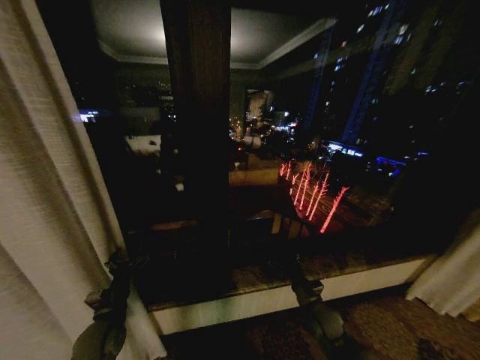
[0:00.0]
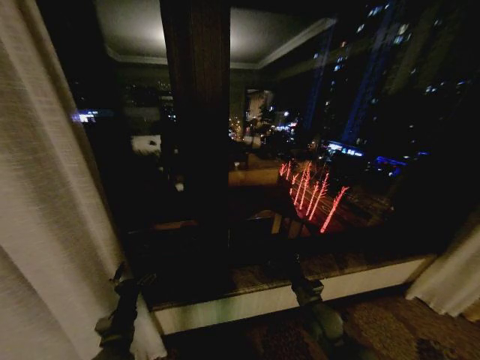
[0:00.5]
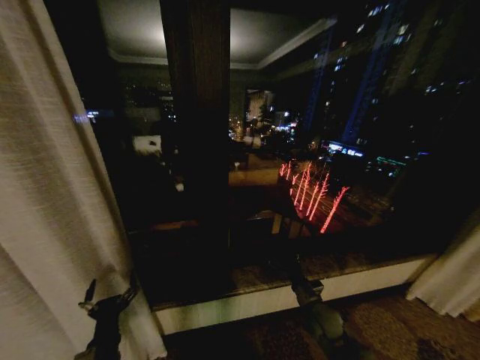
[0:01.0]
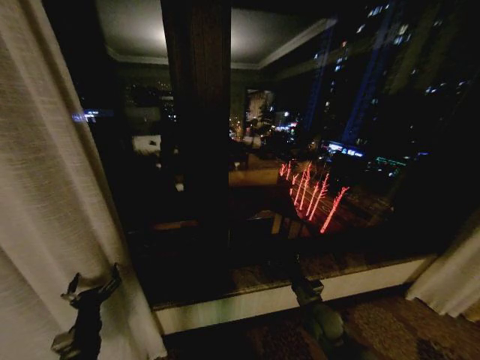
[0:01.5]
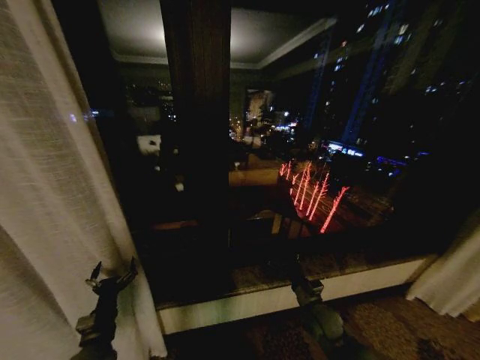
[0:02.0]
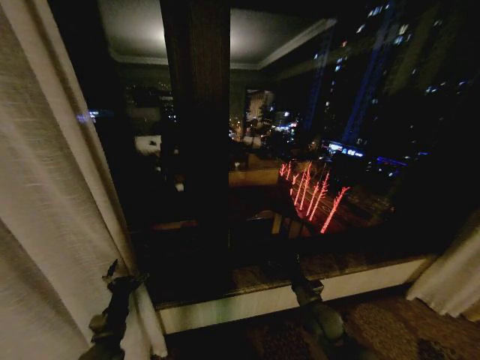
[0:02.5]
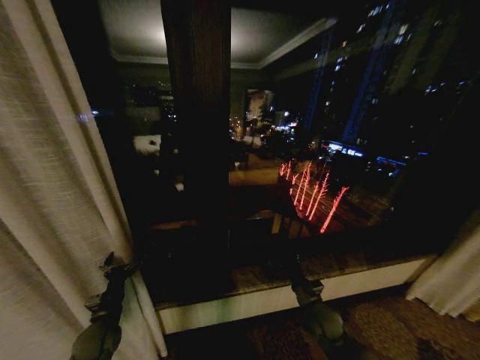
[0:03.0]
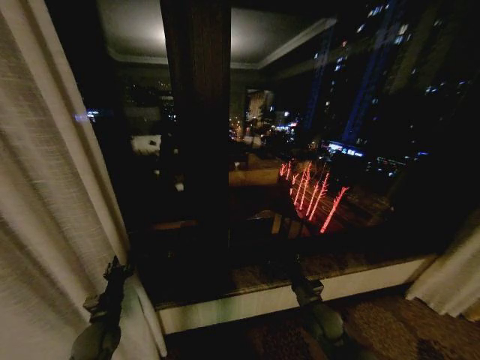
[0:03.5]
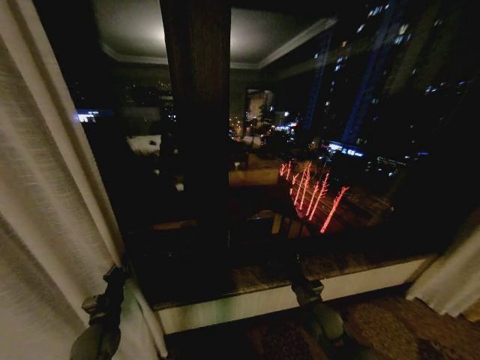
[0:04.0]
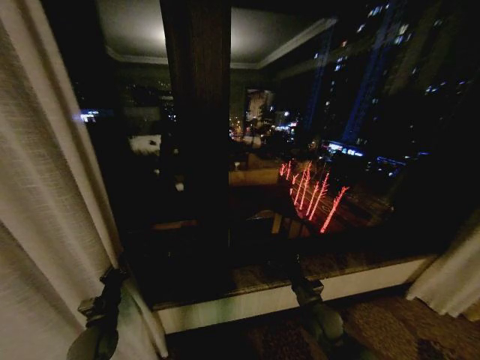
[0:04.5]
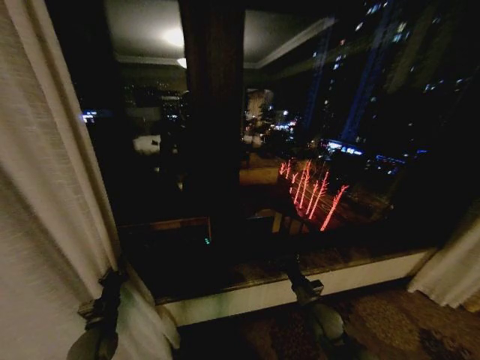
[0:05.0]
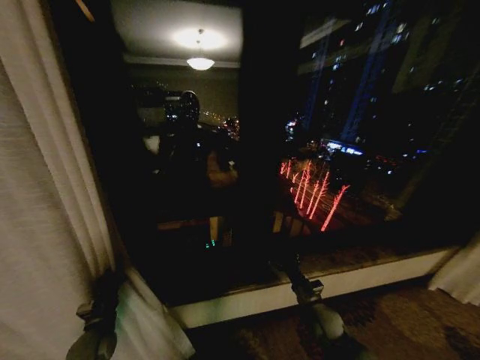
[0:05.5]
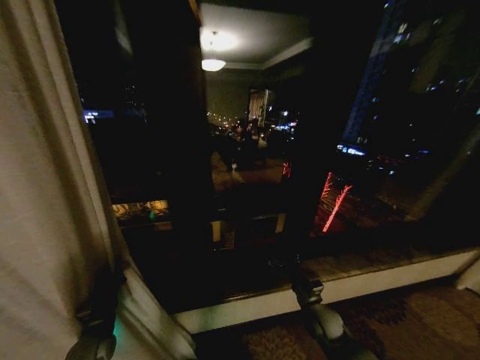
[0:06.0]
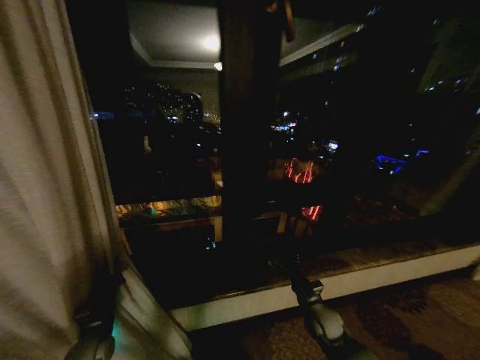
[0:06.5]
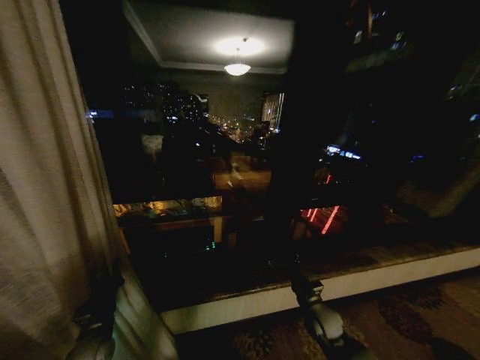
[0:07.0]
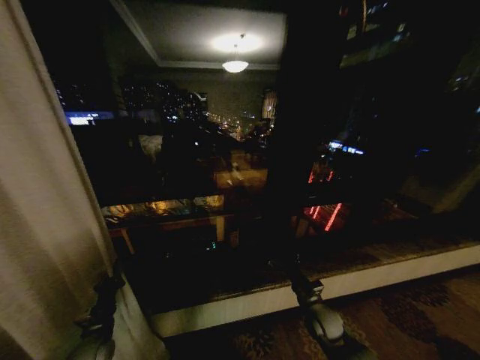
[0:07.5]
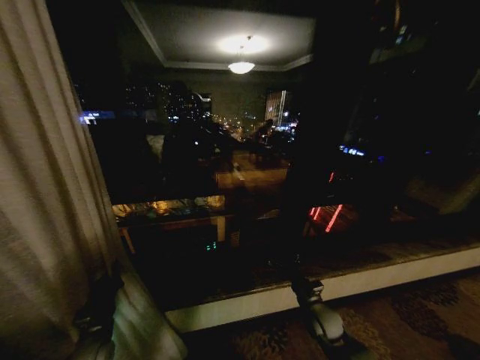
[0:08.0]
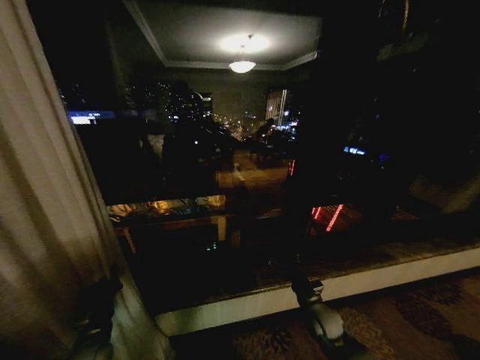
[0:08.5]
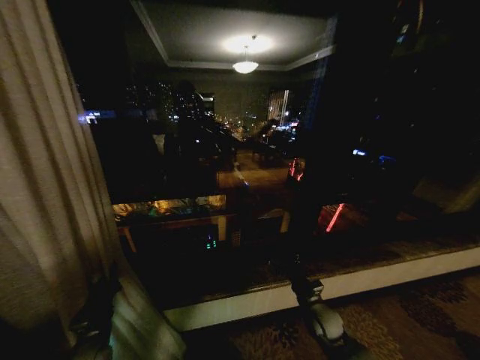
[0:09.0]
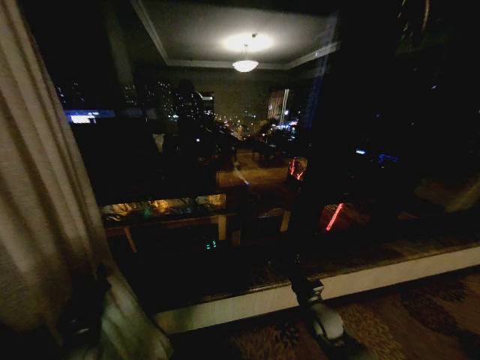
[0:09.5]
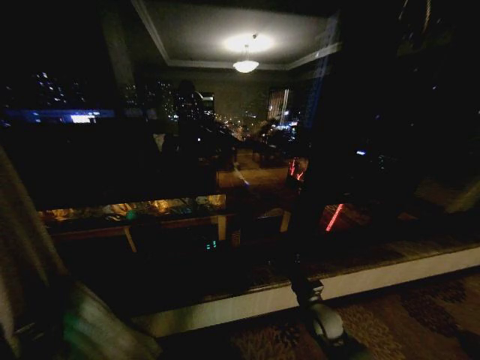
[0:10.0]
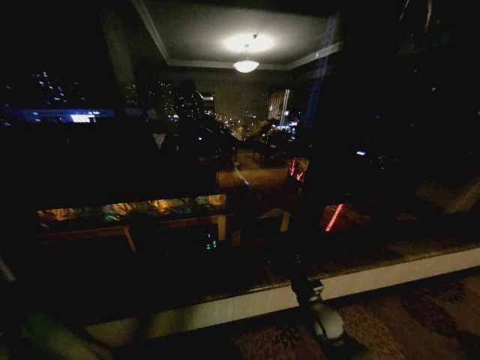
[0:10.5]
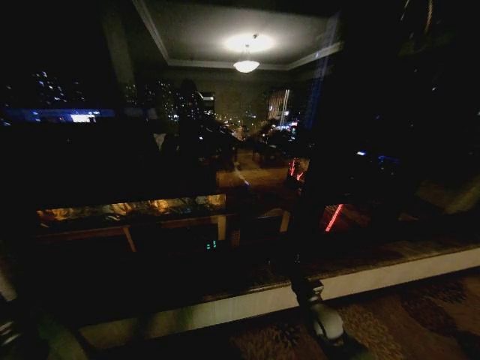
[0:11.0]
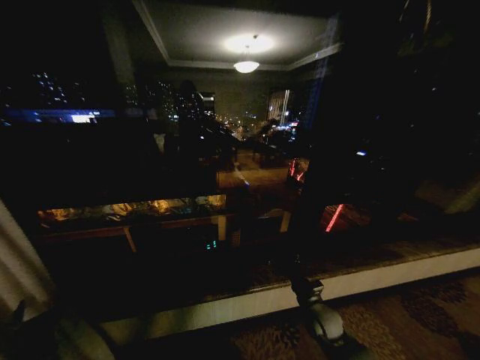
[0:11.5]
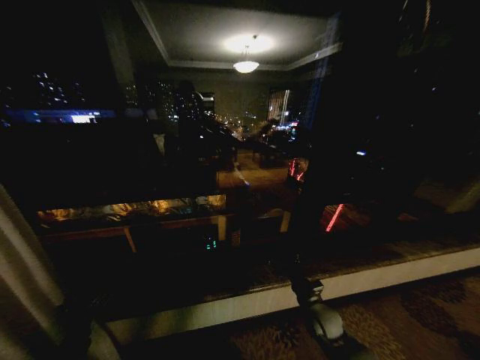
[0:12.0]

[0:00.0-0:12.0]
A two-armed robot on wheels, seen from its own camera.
Task of the whole recording: Open the curtains by pulling them apart, changing their state from closed to fully open.
0:02.0 to 0:04.0: The left gripper changes place by about 5 cm, and closes its fingers.
0:08.0 to 0:10.0: The left gripper travels to the left by about 10 cm.
0:10.0 to 0:12.0: The left gripper is displaced to the right and backward by approximately 15 cm, and opens its fingers.

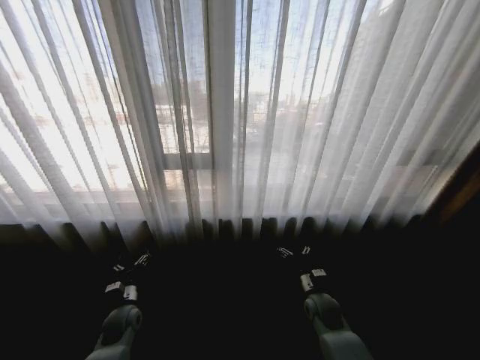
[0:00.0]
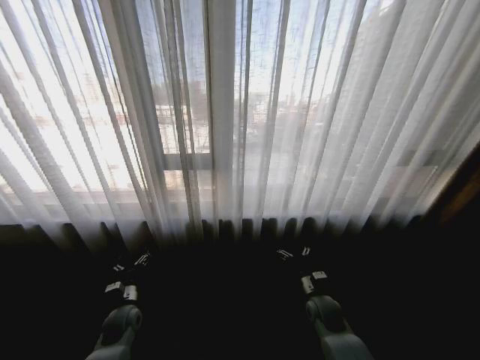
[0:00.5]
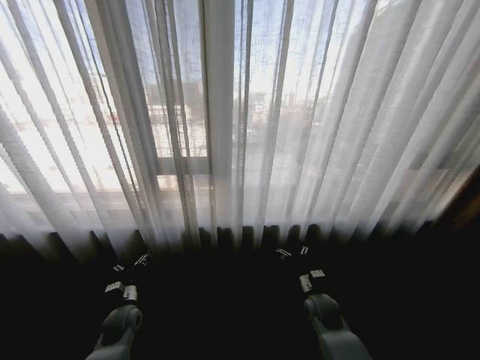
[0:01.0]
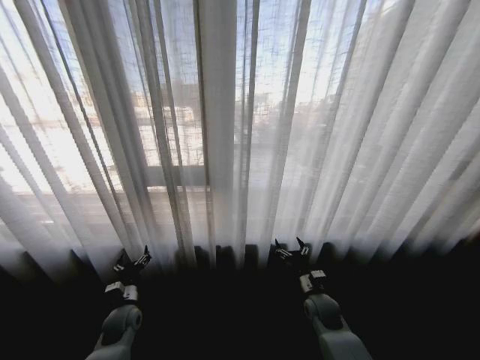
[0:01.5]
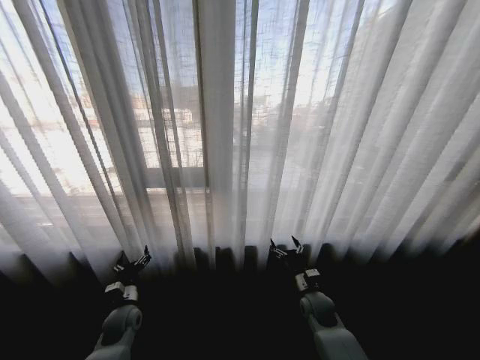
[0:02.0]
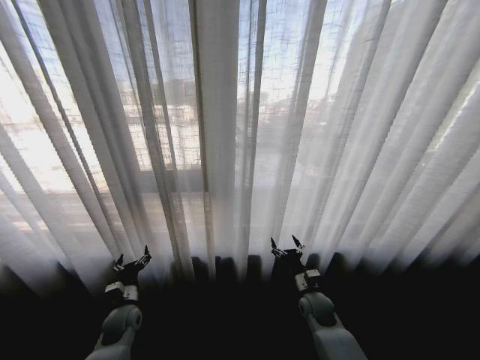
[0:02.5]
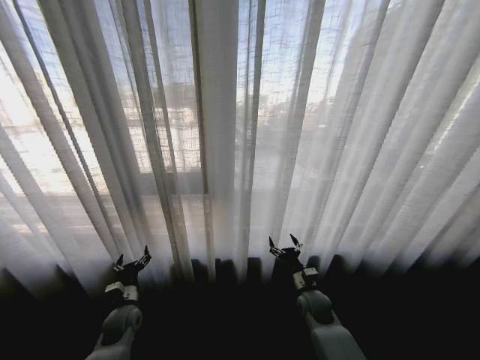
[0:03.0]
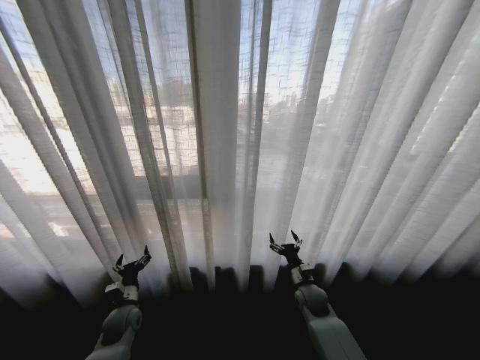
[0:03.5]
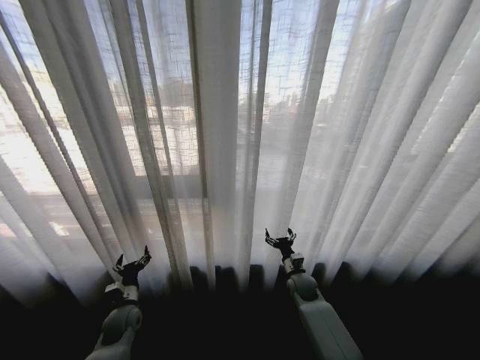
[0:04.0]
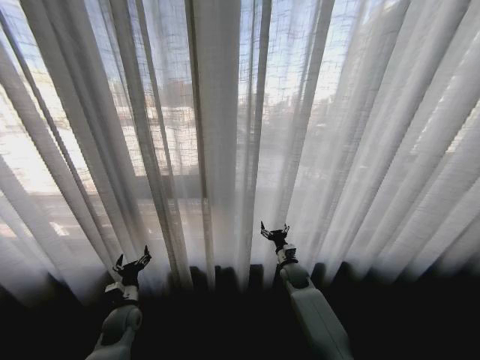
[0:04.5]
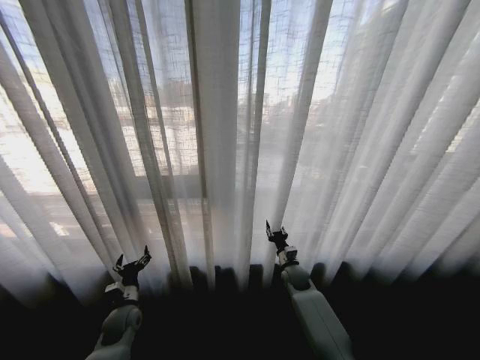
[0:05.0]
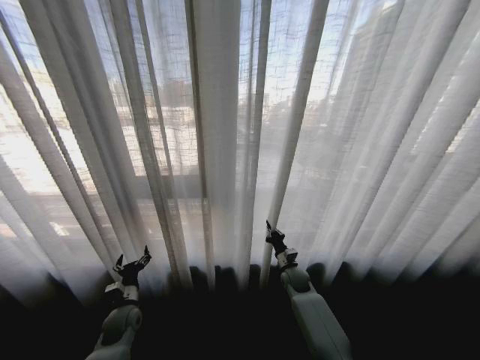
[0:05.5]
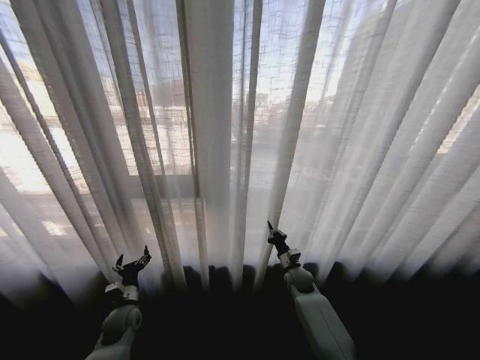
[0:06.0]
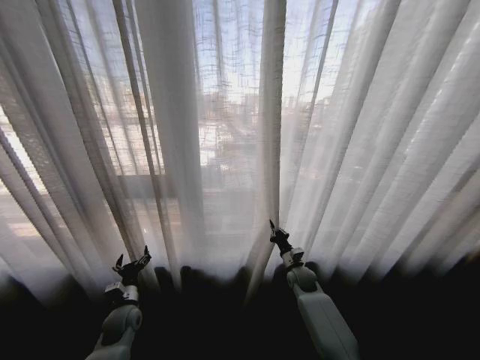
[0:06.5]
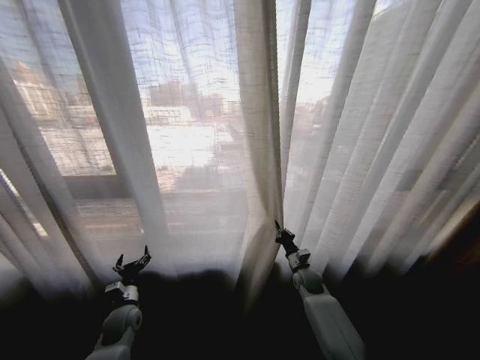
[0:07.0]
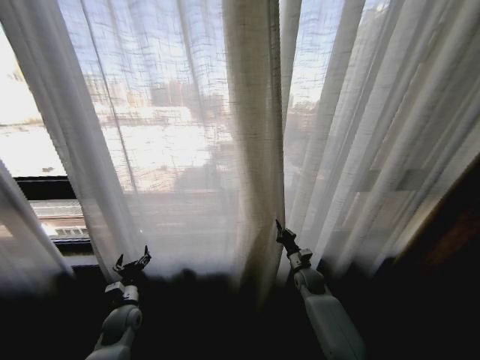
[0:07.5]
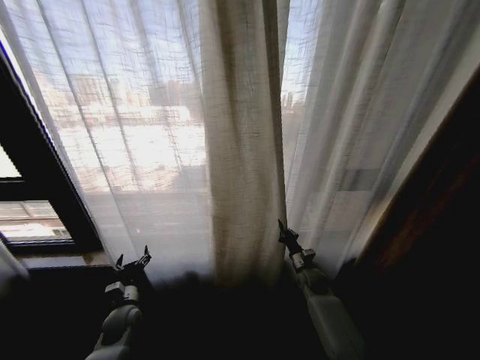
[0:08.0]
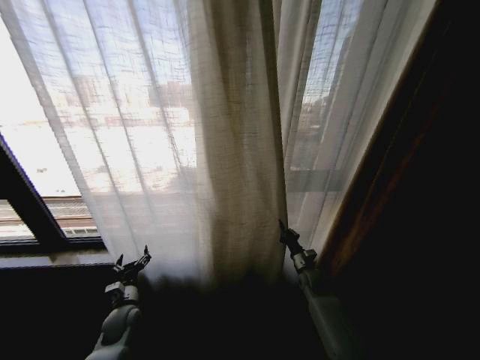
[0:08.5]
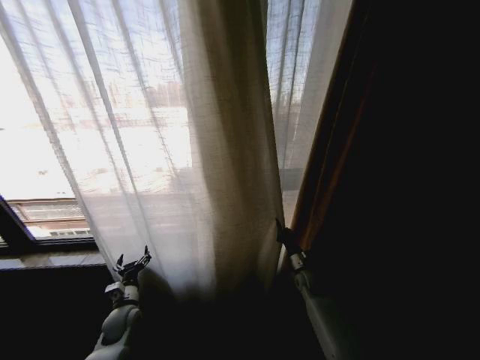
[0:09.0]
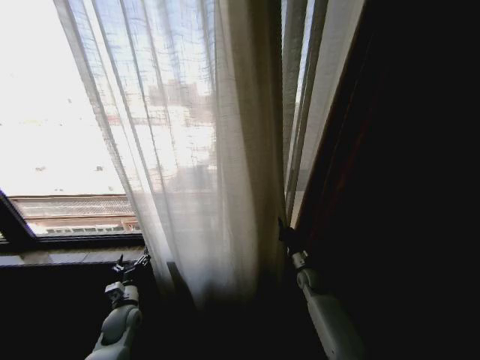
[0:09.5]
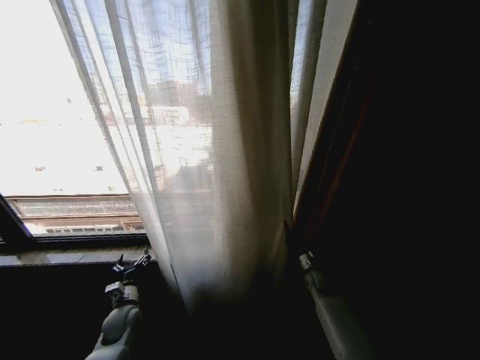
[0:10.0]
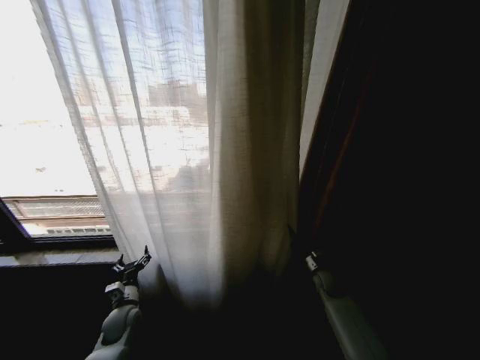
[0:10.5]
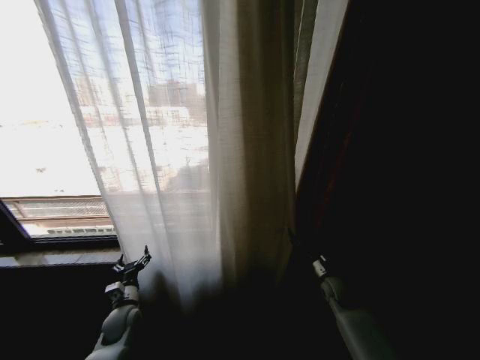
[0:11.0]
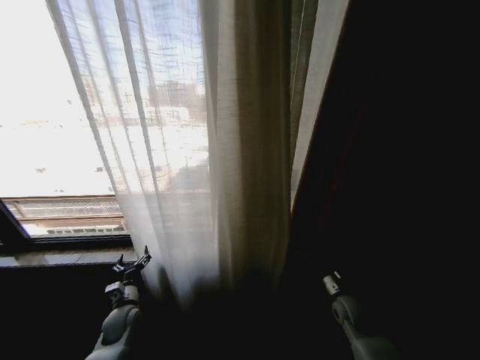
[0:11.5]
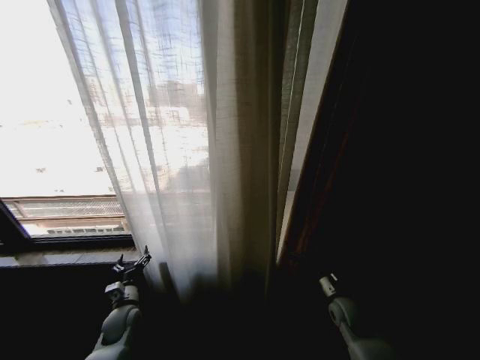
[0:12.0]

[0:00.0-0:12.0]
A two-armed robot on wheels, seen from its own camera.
Task of the whole recording: Open the curtains by pulling them apart, changing their state from closed to fully open.
0:02.0 to 0:04.0: The right gripper is displaced forward by about 5 cm.
0:04.0 to 0:06.0: The right gripper closes.
0:10.0 to 0:12.0: The right gripper moves backward, approximately 10 cm, and opens.

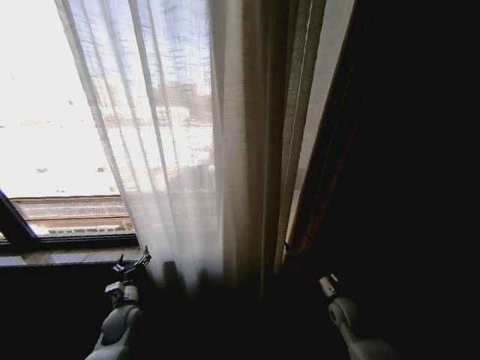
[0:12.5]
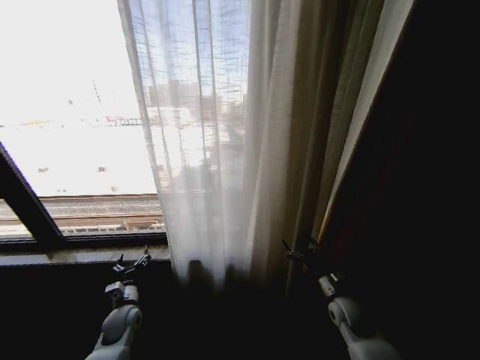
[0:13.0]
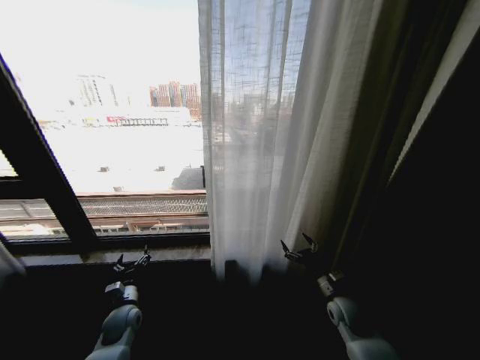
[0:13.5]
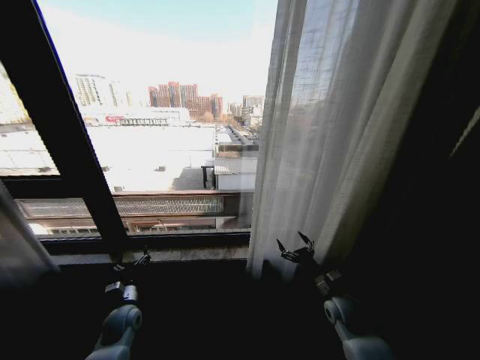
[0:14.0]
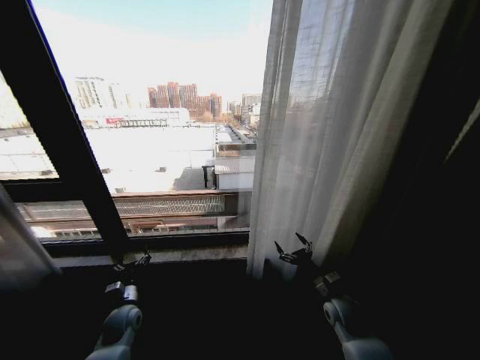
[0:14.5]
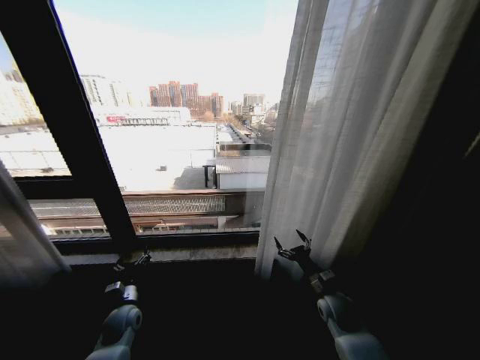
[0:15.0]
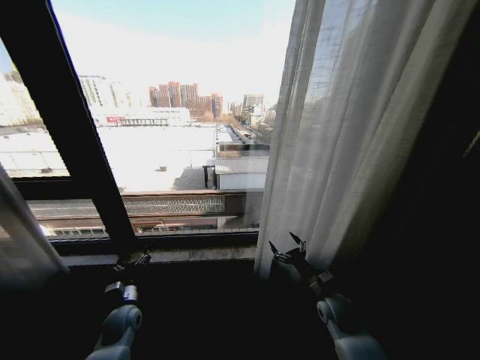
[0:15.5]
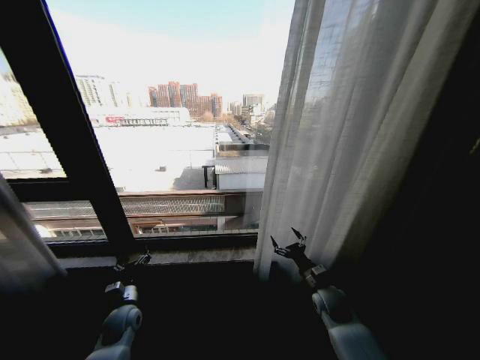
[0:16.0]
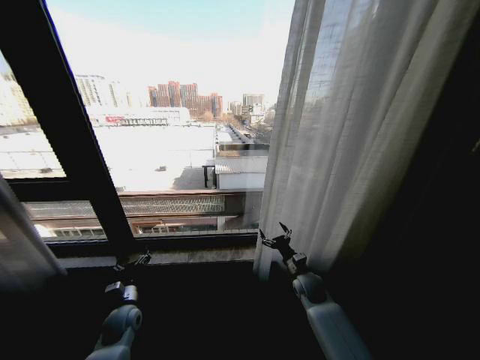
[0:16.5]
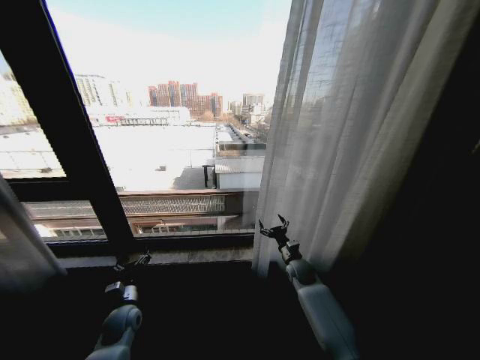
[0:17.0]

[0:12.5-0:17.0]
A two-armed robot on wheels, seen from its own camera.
Task of the whole recording: Open the curtains by pulling them apart, changing their state from closed to fully open.
0:14.5 to 0:17.0: The right gripper is displaced forward and to the left by roughly 15 cm.
